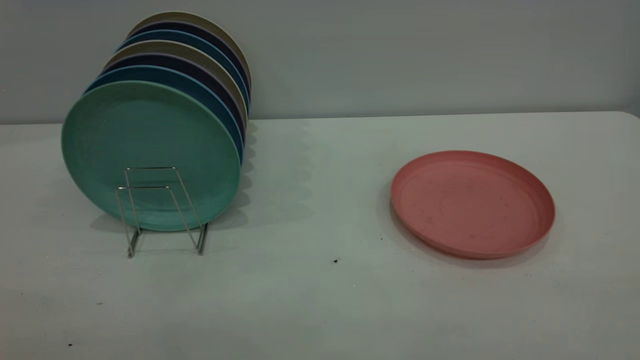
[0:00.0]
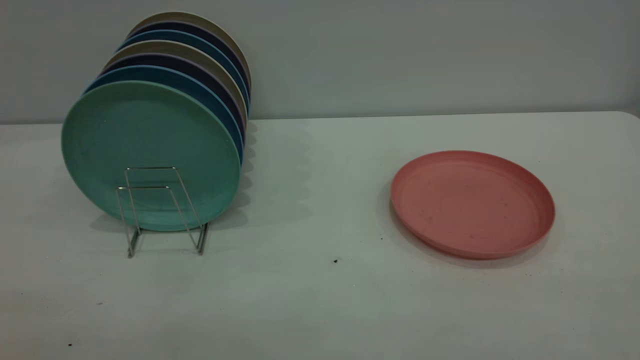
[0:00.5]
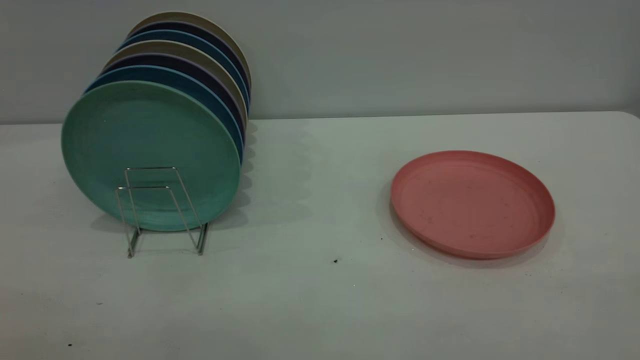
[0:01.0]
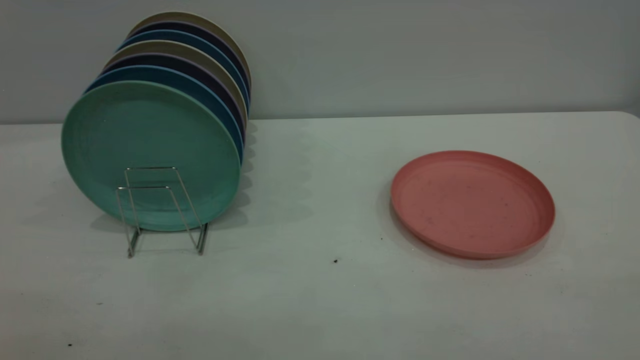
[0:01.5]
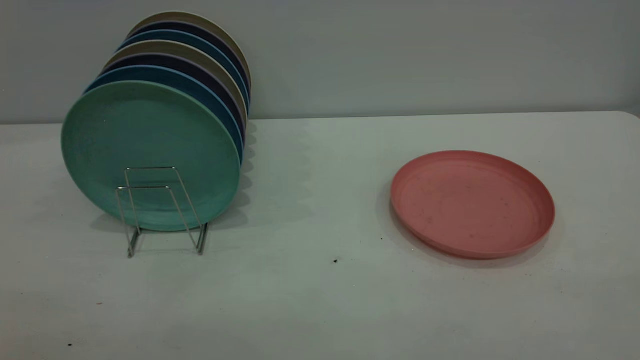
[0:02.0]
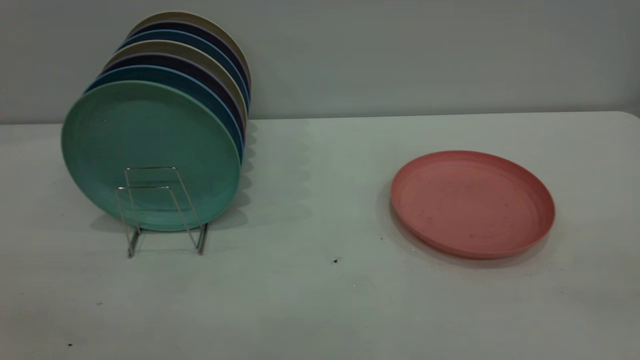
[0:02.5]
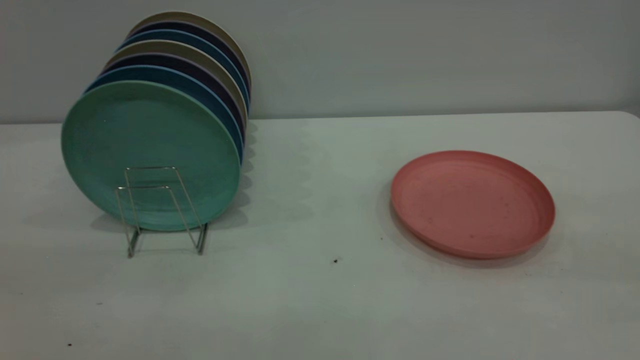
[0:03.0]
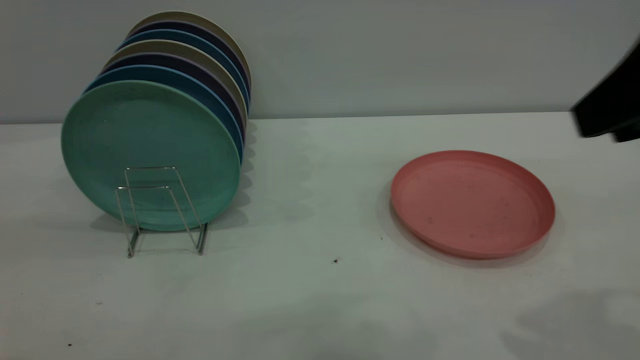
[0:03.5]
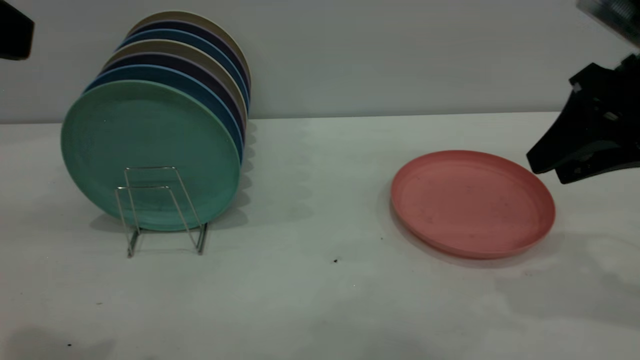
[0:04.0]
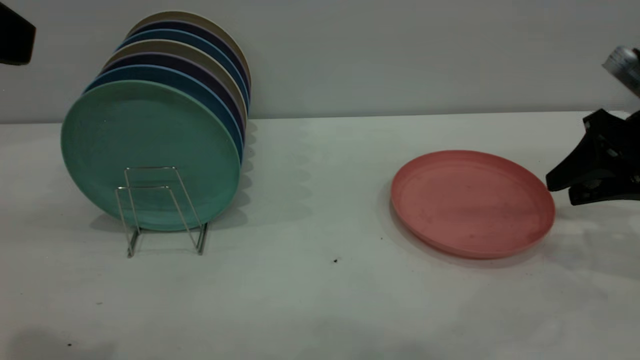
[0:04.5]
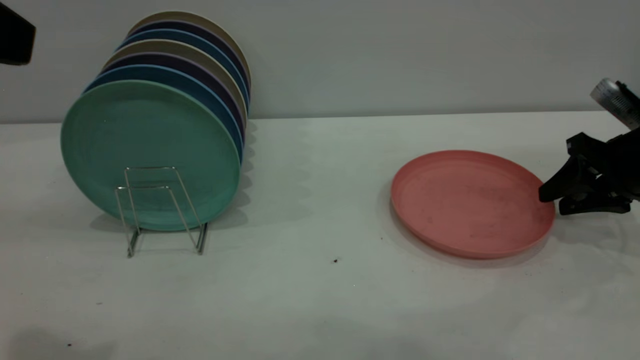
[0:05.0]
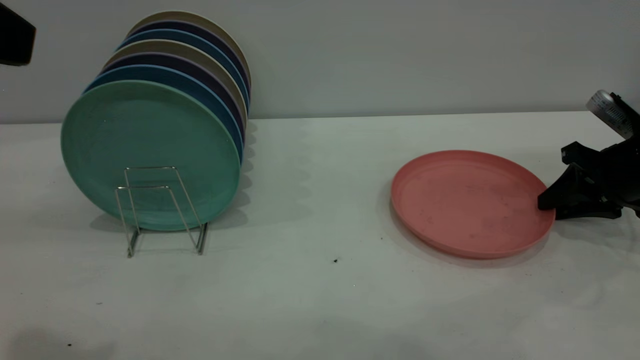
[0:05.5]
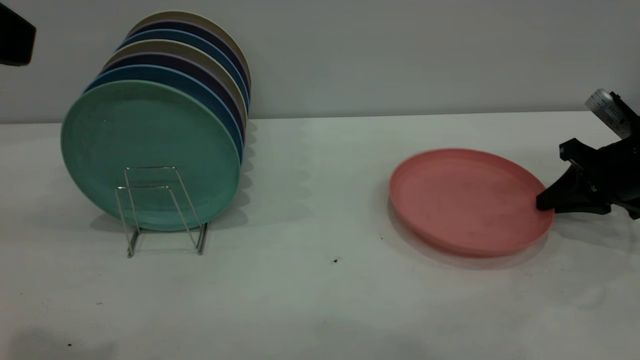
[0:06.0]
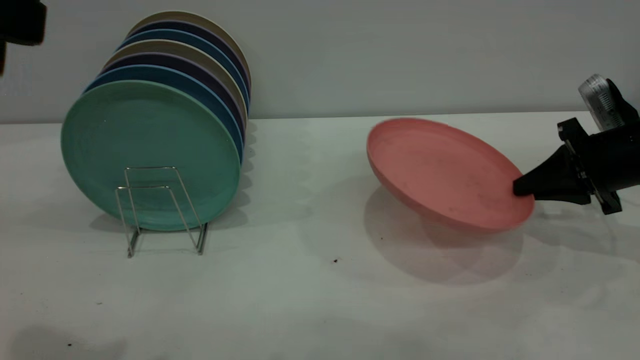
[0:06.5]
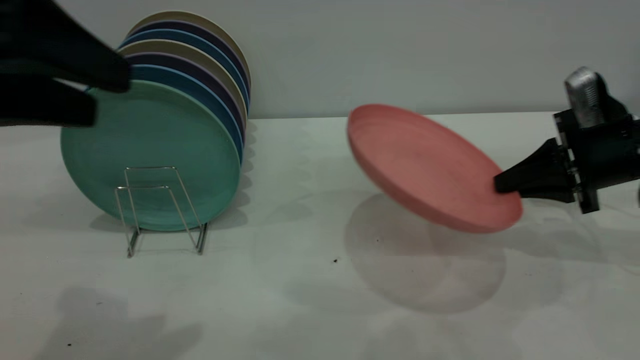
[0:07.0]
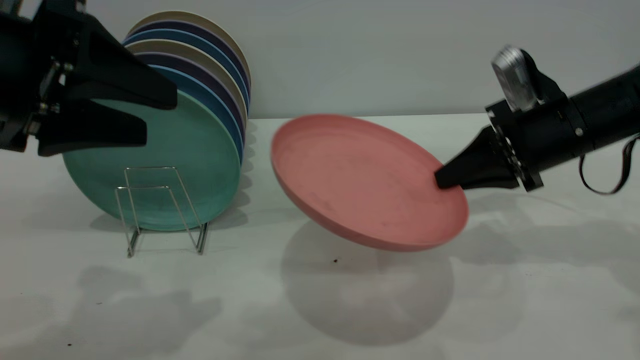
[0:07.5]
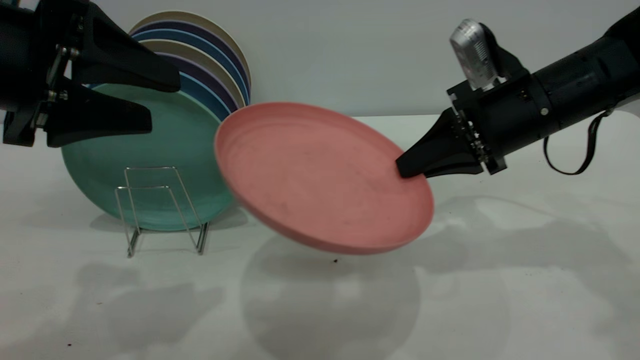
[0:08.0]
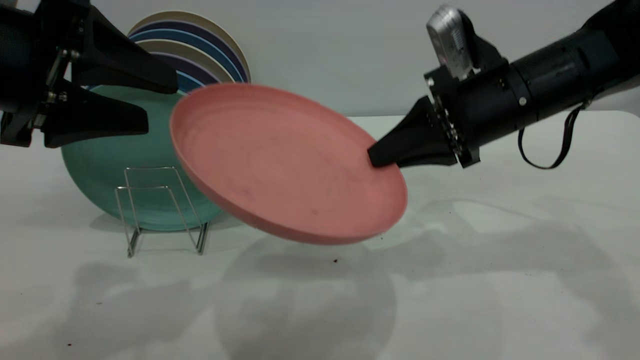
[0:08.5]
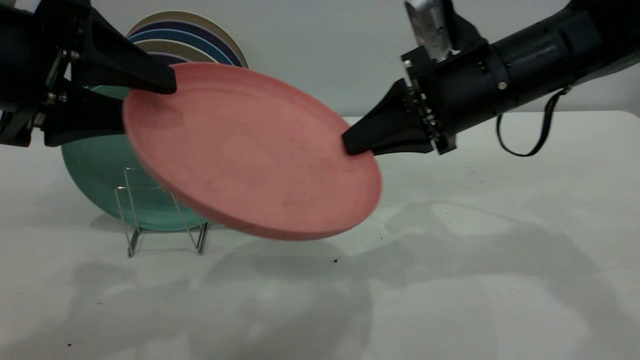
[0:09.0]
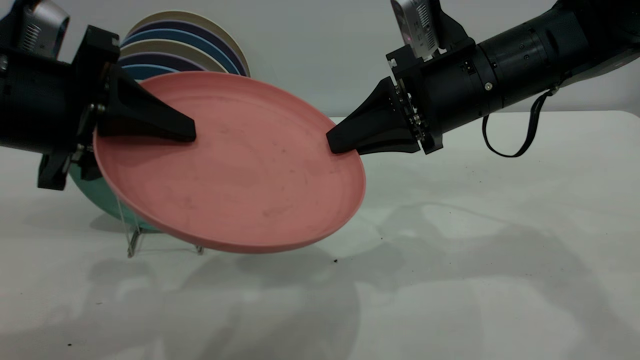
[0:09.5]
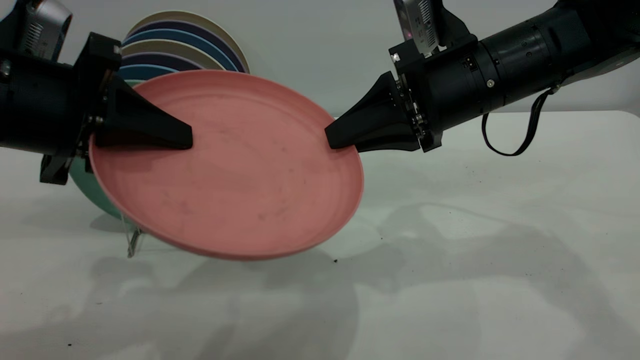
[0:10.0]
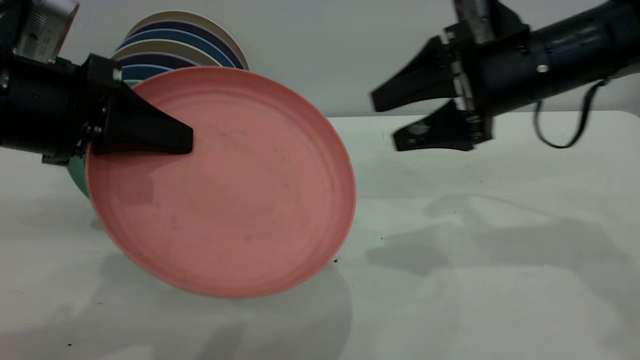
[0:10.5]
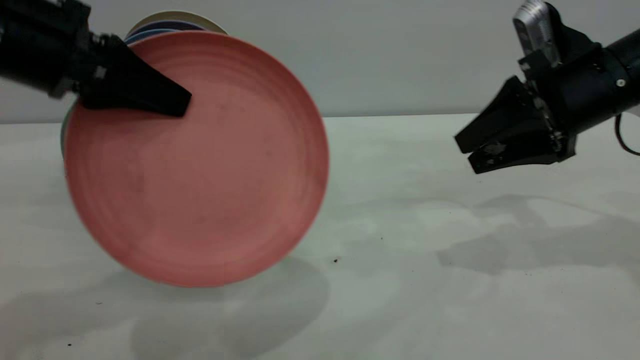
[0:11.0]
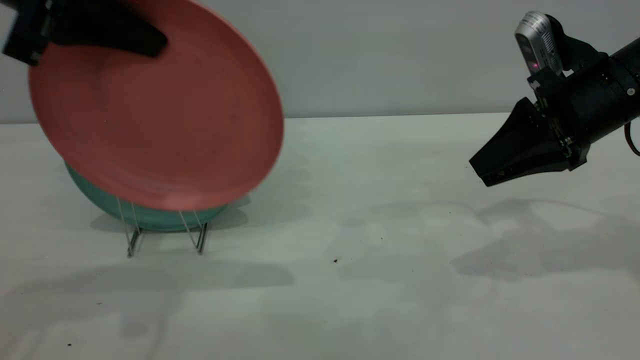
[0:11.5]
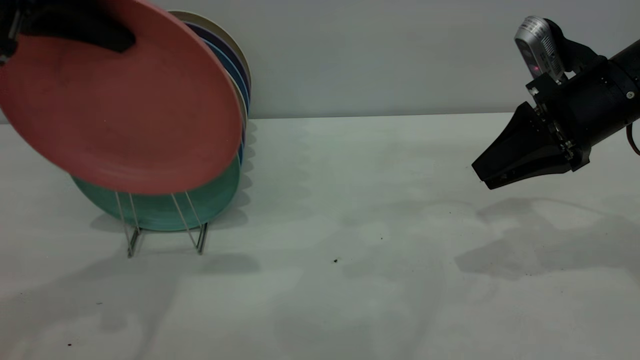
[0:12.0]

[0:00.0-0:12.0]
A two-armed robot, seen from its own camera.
Task of the whole recording: the right gripper grasp the pink plate, the right gripper pass the pink plate to the left gripper, and the left gripper place the pink plate on the plate rack.
Step, 0:00.0 to 0:06.5: Pick up the plate with the right gripper.
0:00.0 to 0:02.0: Both grippers stay about where they are.
0:02.0 to 0:04.0: The left gripper travels forward by approximately 20 cm, while the right gripper is displaced forward by roughly 35 cm.
0:04.0 to 0:06.0: The right gripper is displaced downward, forward and to the right by some 20 cm, and closes.
0:06.0 to 0:08.0: The right gripper travels to the left and upward by about 20 cm, while the left gripper heads downward and forward, covering about 10 cm.
0:08.0 to 0:10.0: The left gripper closes; the right gripper travels to the left by about 5 cm.
0:10.0 to 0:12.0: The right gripper goes some 15 cm to the right, and opens and closes again, while the left gripper heads upward and forward, covering about 10 cm.

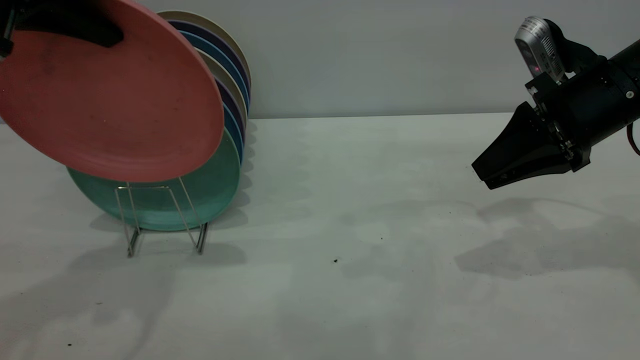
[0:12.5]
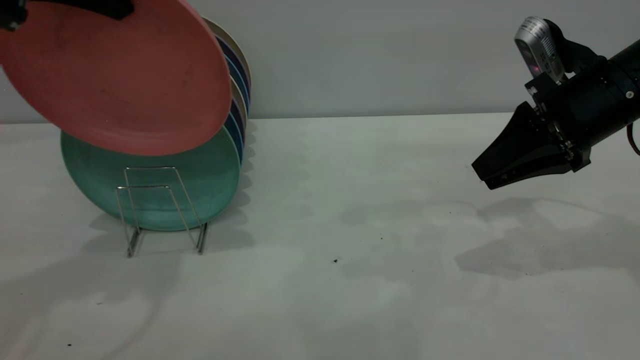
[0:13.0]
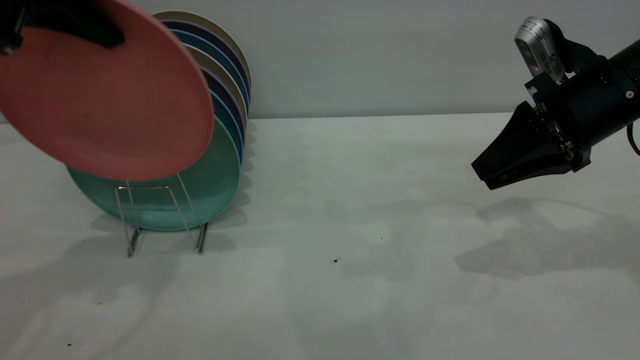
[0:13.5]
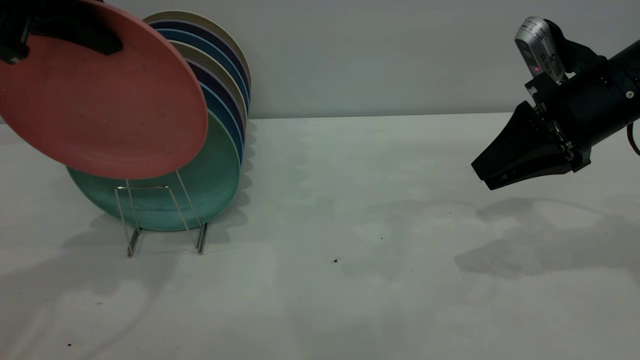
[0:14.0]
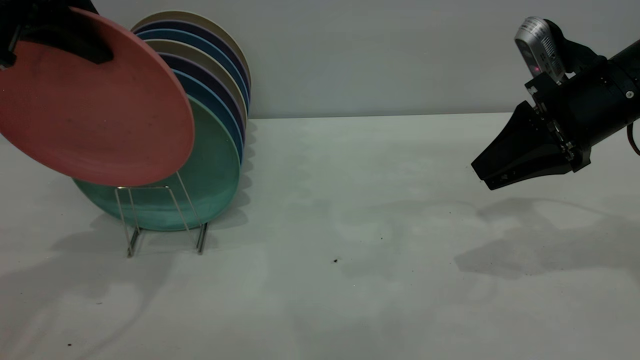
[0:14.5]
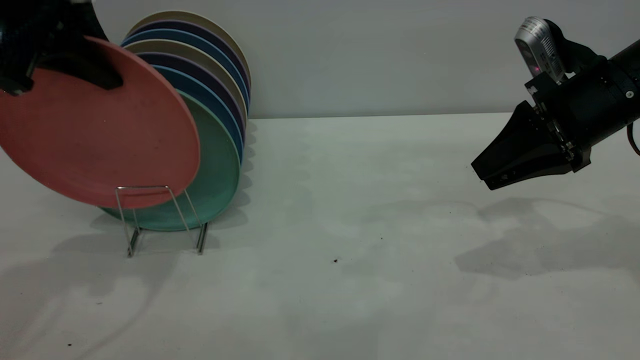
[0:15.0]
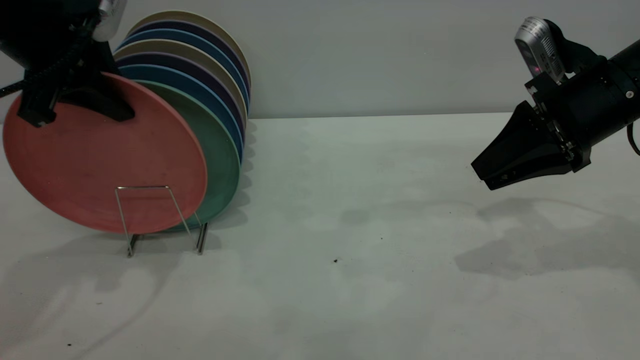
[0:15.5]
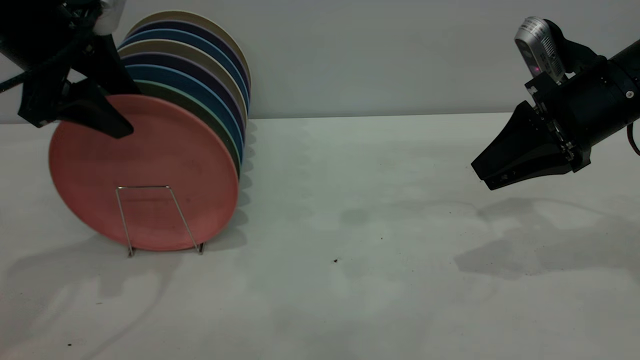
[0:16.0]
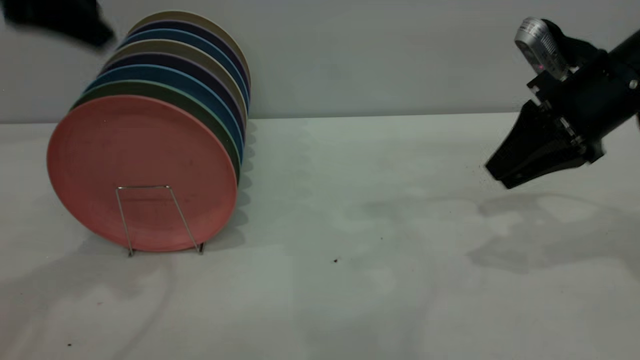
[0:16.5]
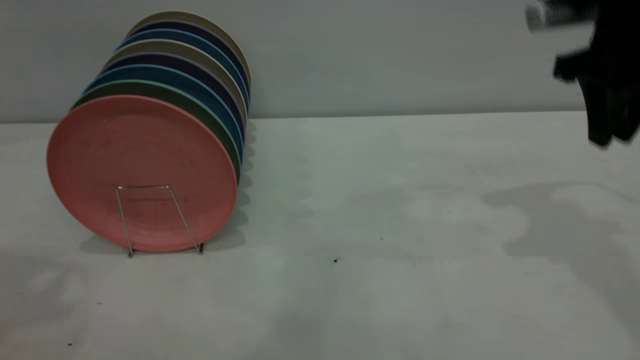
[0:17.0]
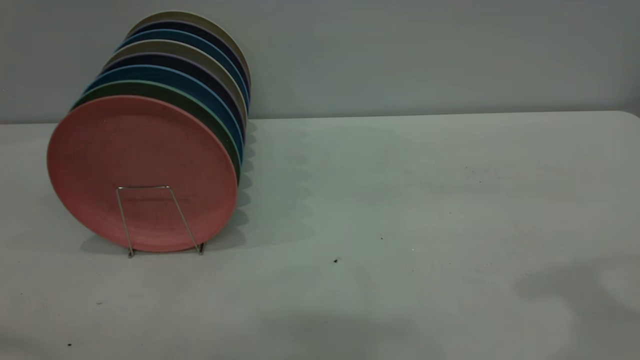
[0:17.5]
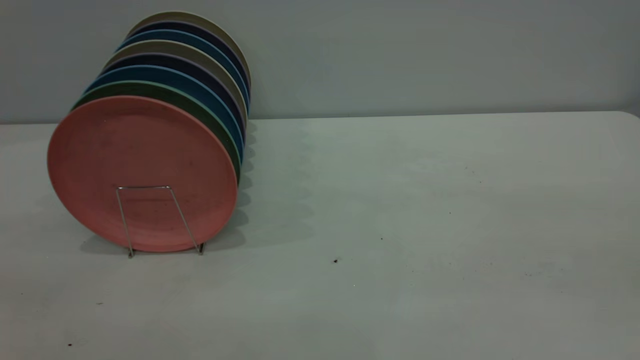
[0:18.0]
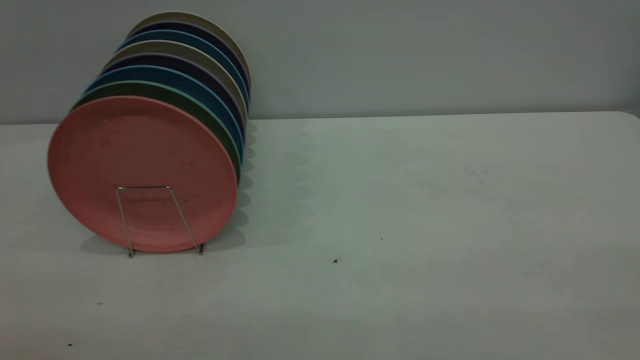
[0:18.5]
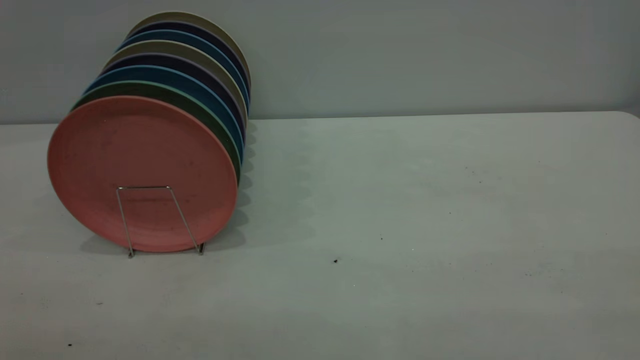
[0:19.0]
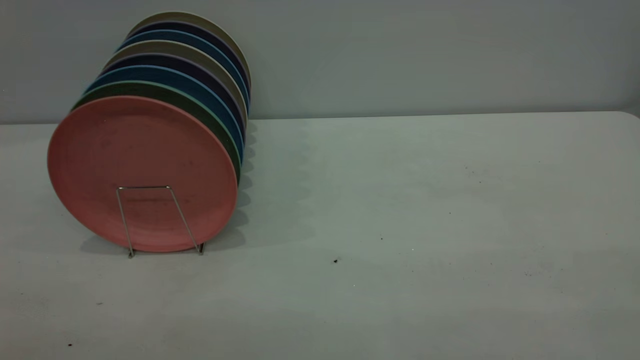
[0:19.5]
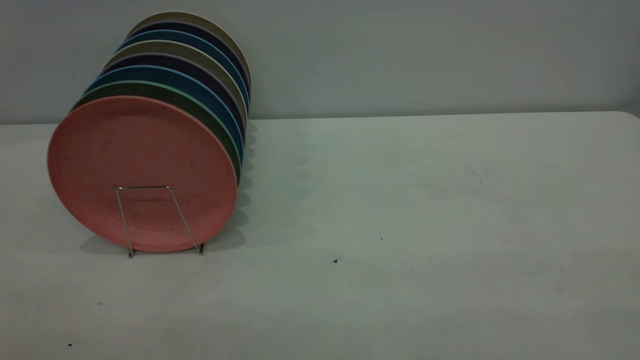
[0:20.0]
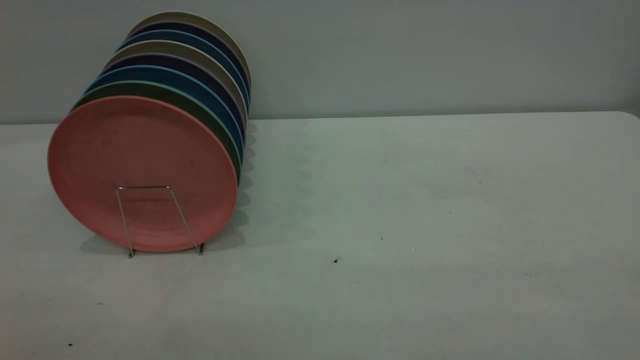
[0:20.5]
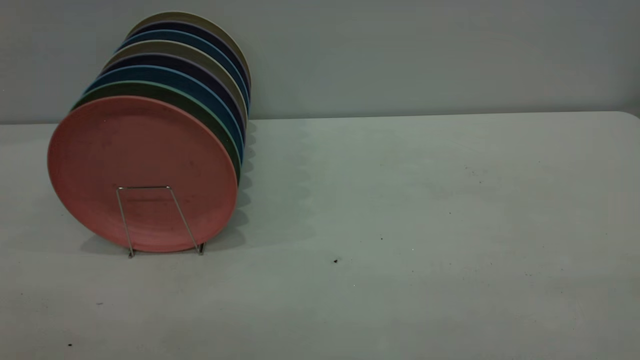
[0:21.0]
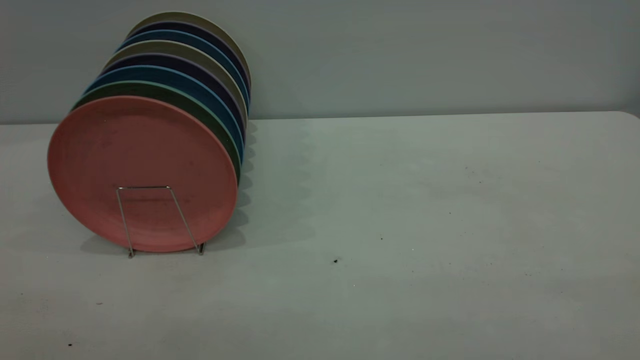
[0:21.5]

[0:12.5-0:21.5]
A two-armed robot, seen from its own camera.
Task of the whole recording: the right gripper grasp the pink plate, the right gripper pass the pink plate to the left gripper, and the left gripper place the pink plate on the plate rack.
Step, 0:13.0 to 0:16.5: Place the plate on the shelf.
0:12.5 to 0:14.5: The grippers move only a little.
0:14.5 to 0:17.0: The left gripper travels upward, backward and to the left by roughly 15 cm, and opens up, while the right gripper shifts approximately 10 cm upward.
0:17.0 to 0:19.5: The right gripper travels backward by roughly 35 cm.
